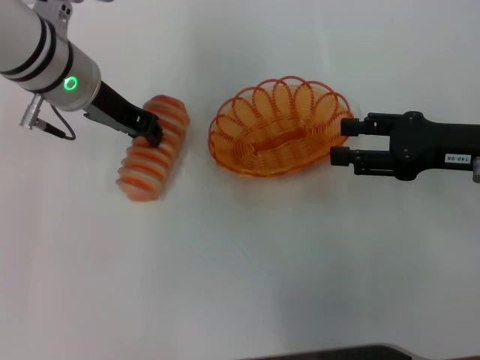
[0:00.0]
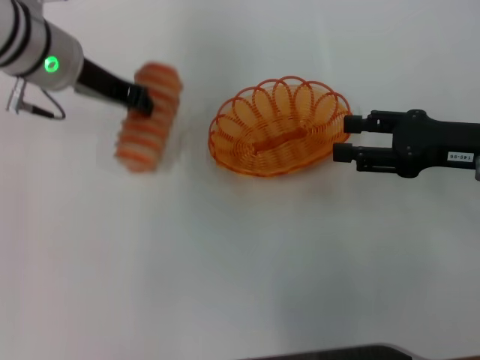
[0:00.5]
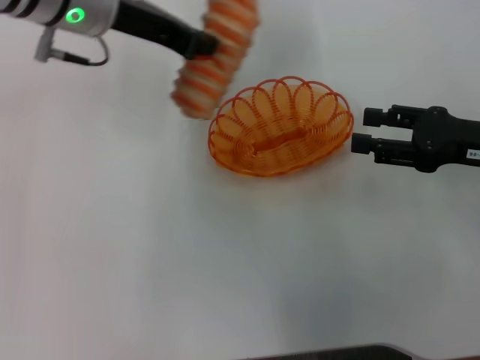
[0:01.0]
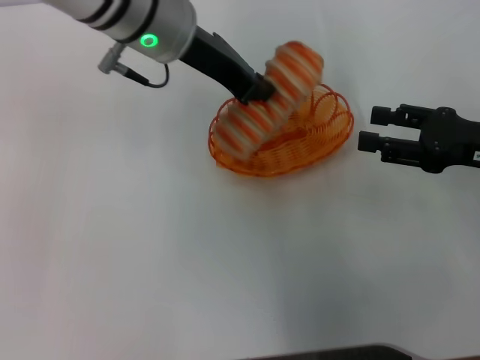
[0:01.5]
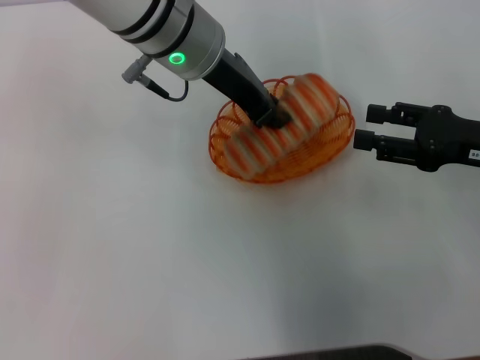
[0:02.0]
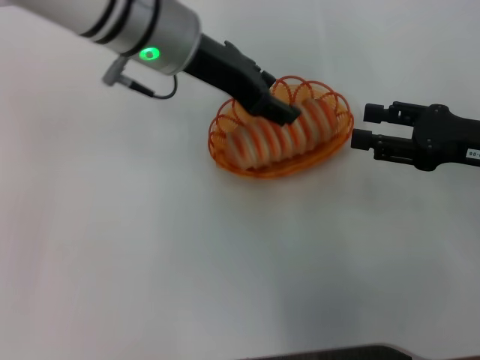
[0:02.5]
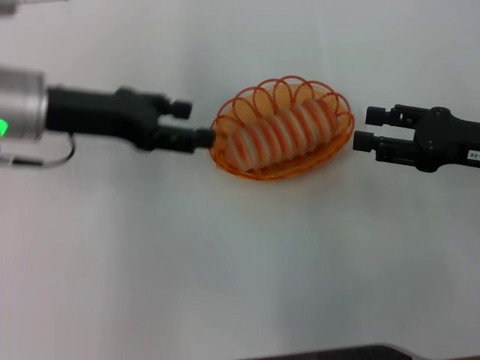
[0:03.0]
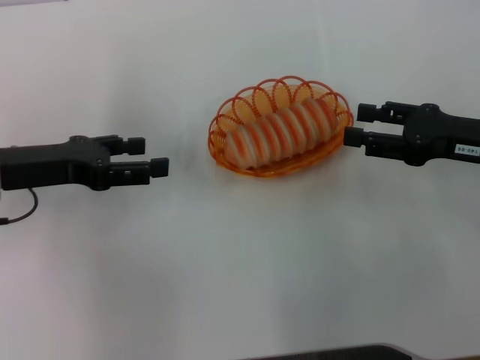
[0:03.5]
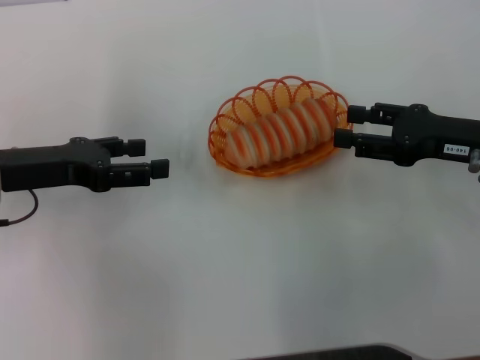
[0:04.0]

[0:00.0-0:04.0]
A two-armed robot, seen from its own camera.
Step, 0:01.0 to 0:02.5: Place the long bread into the basket with the left gripper.
0:00.0 to 0:02.0: The left gripper travels to the right by some 10 cm.
0:02.0 to 0:04.0: The left gripper is displaced to the left and downward by roughly 25 cm, and opens its fingers.

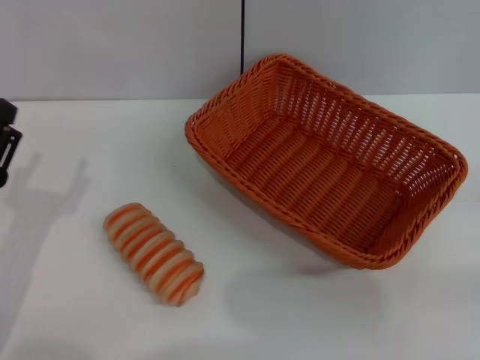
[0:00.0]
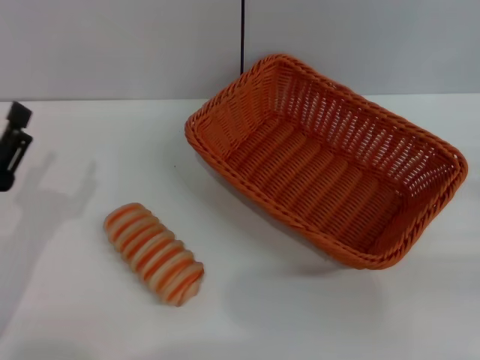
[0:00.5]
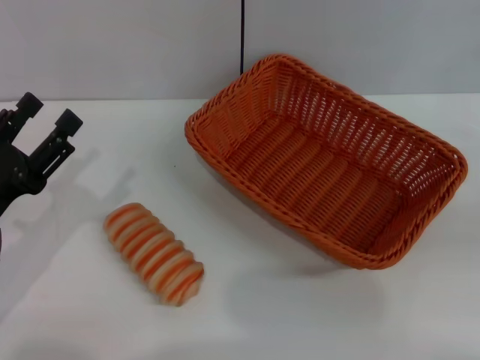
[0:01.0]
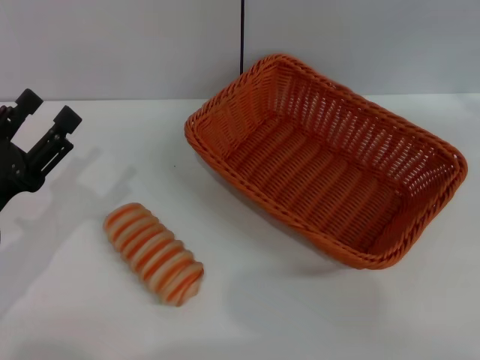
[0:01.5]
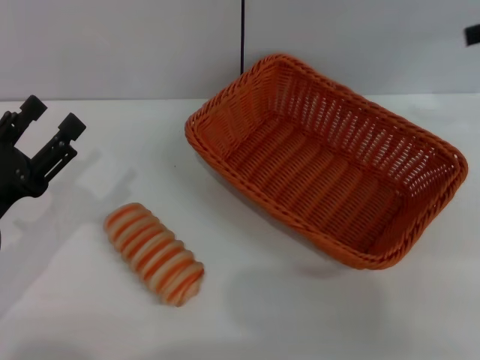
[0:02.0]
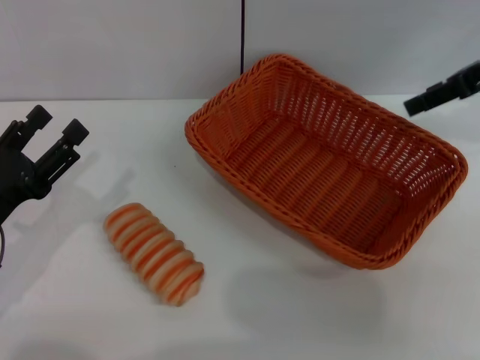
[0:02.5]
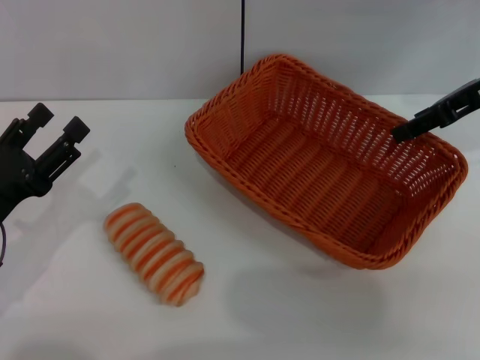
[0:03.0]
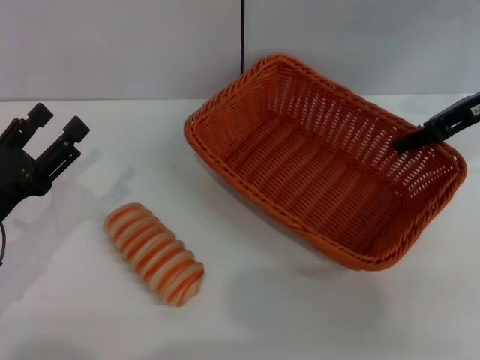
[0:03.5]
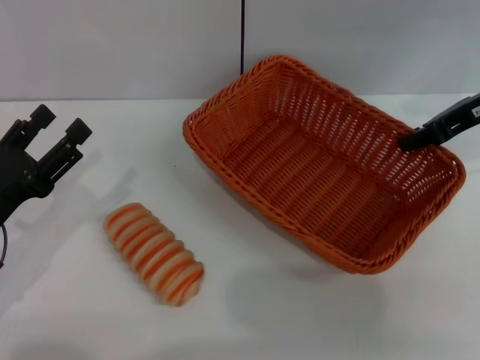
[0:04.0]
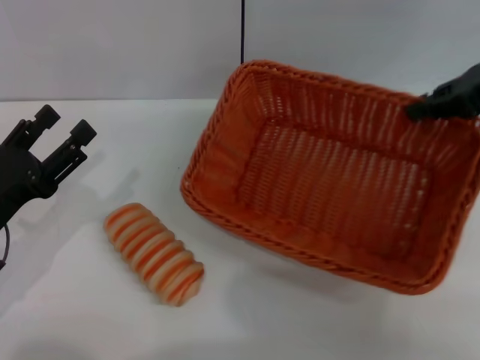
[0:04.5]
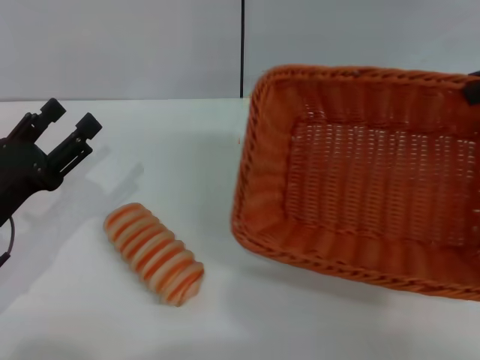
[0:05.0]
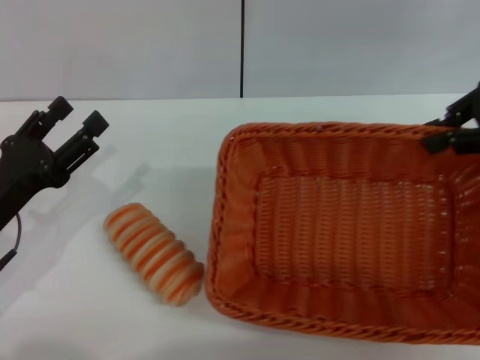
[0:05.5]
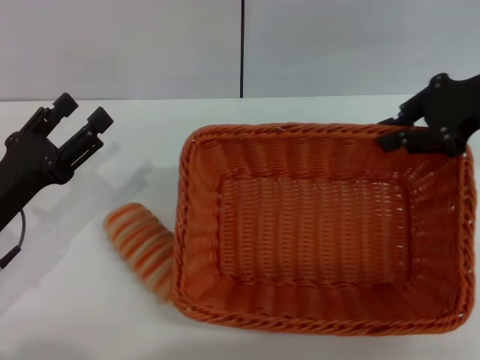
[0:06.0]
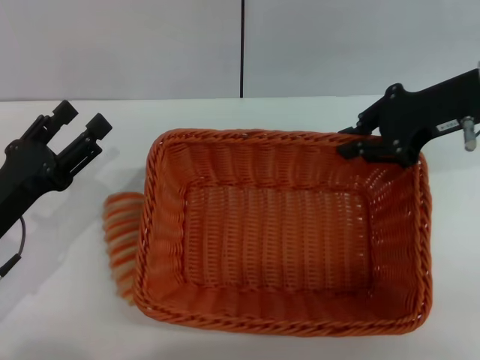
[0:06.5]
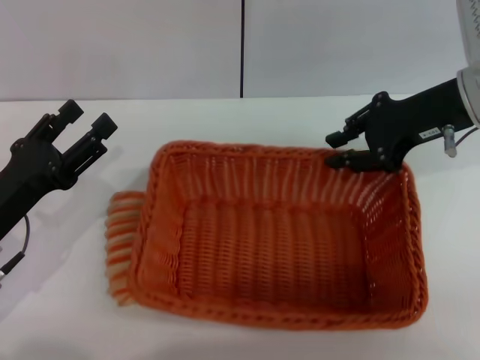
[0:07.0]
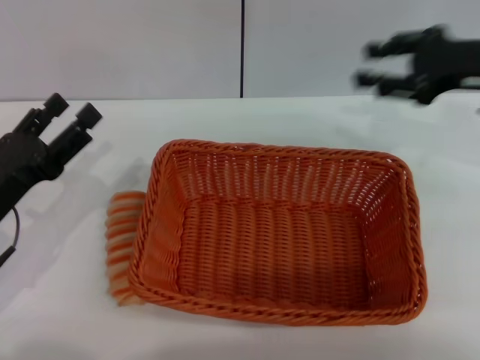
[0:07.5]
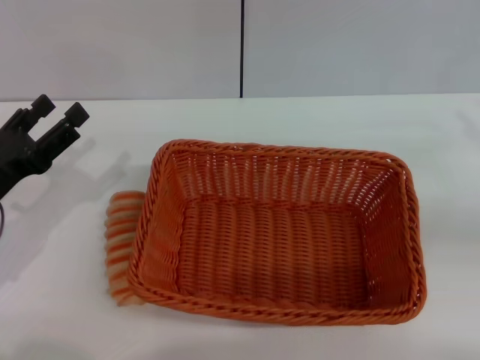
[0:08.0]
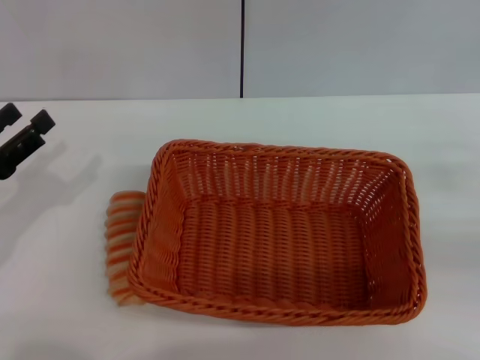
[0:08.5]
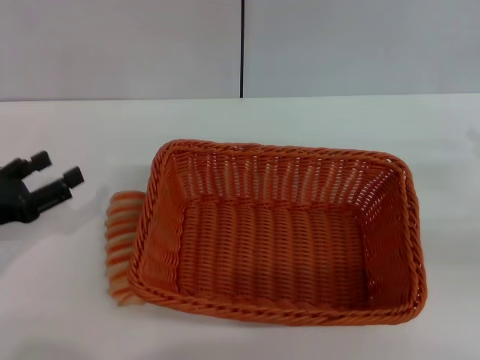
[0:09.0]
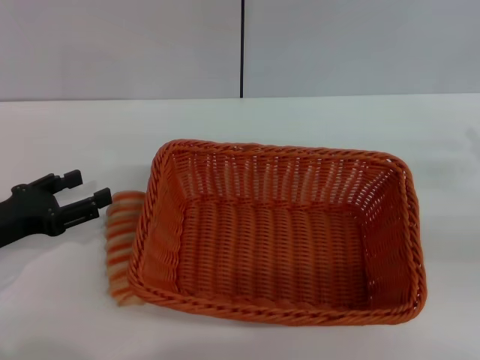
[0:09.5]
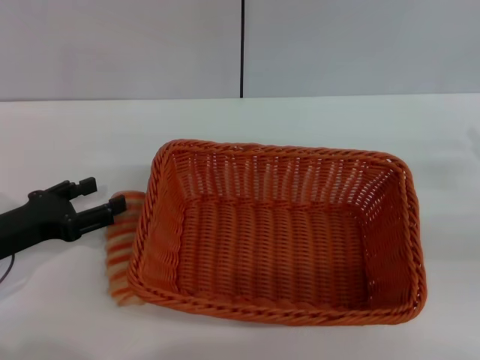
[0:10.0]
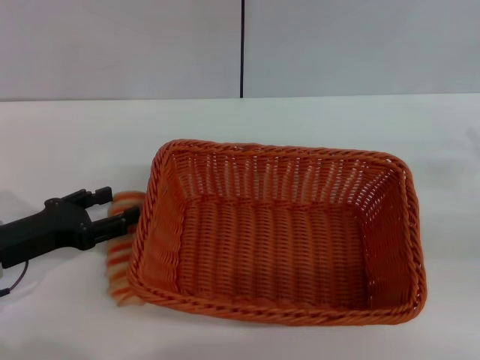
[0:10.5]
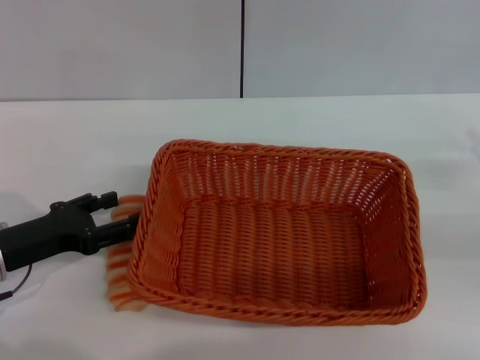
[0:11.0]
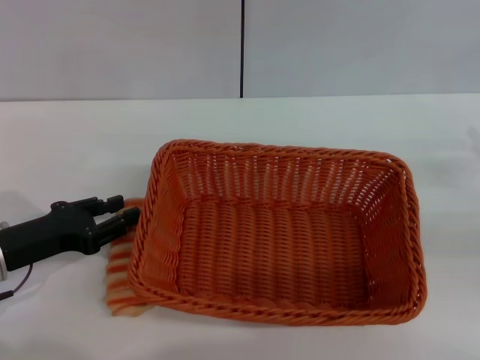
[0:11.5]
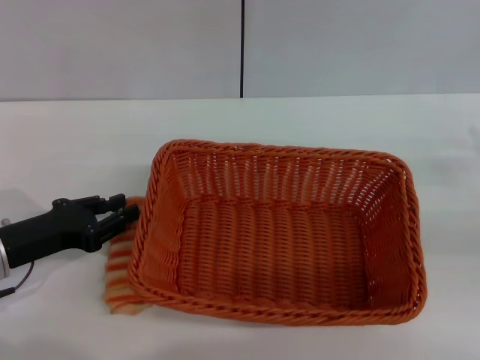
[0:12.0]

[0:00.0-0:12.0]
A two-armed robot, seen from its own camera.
Step, 0:00.0 to 0:05.0: Pick up the light basket with the right gripper.
Step, 0:05.5 to 0:07.0: Place the light basket in the center of view with the right gripper.
0:00.0 to 0:02.0: The right gripper goes about 30 cm upward and forward.
0:02.0 to 0:04.0: The right gripper goes about 10 cm downward and to the left, and closes.
0:04.0 to 0:06.0: The right gripper travels upward and back again, roughly 10 cm each way.
0:06.0 to 0:08.0: The right gripper goes approximately 15 cm to the right, backward and downward, and opens up.
0:10.0 to 0:12.0: The left gripper closes.

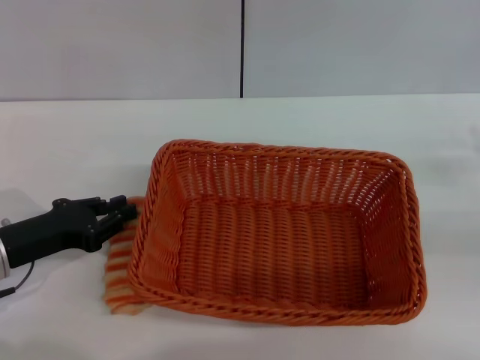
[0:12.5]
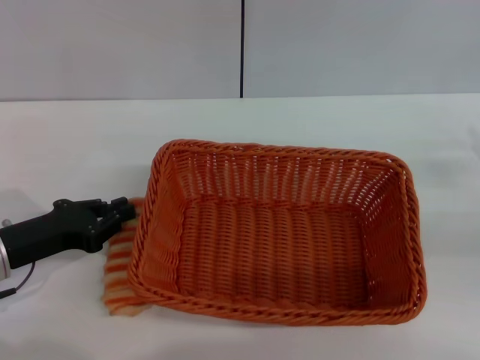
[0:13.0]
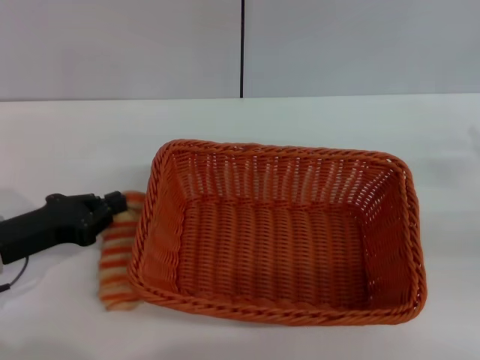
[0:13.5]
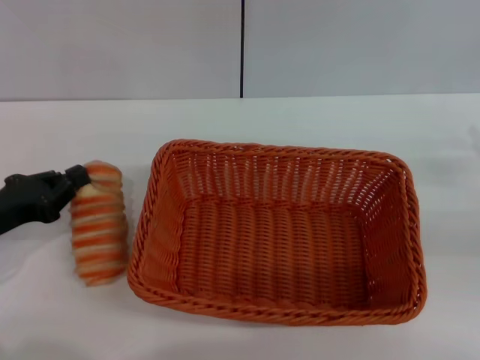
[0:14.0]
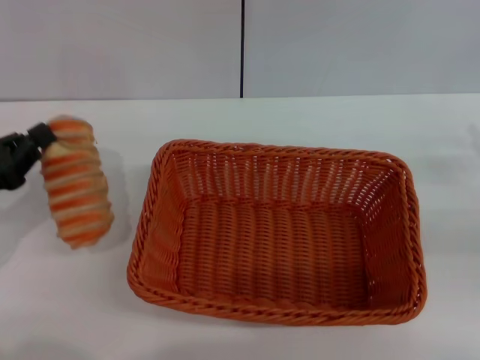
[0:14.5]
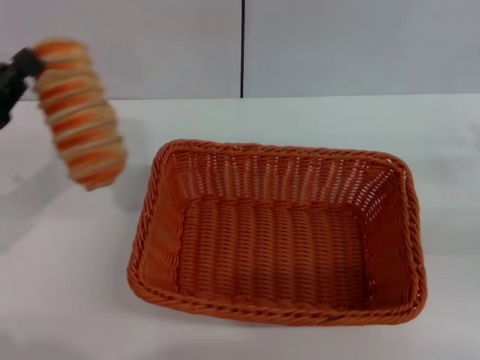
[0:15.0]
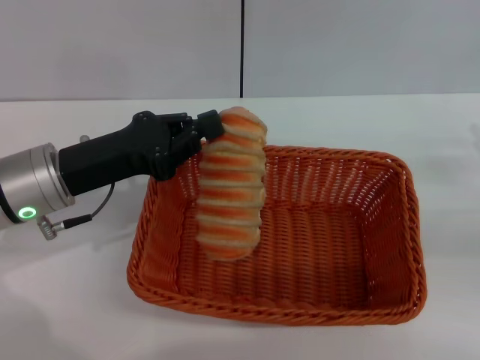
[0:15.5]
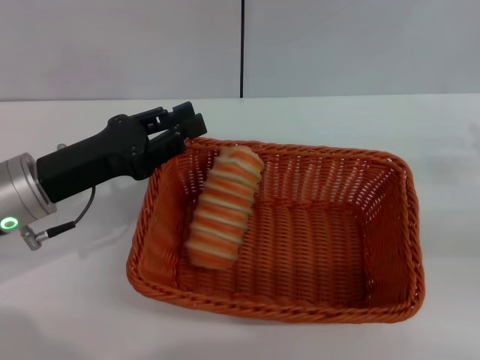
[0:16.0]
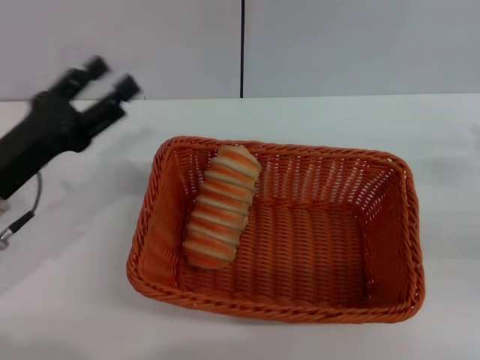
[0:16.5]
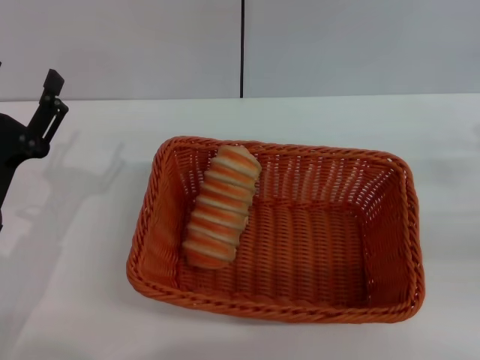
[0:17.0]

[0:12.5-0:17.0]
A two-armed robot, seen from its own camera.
Step, 0:14.5 to 0:15.5: Place the long bread into the light basket with the left gripper.
0:12.5 to 0:14.5: The left gripper moves some 5 cm.
0:14.5 to 0:17.0: The left gripper shifts approximately 10 cm to the right, and opens up.
